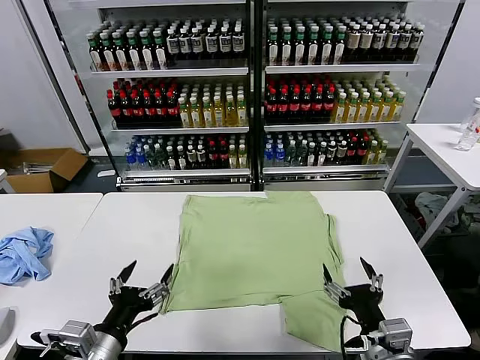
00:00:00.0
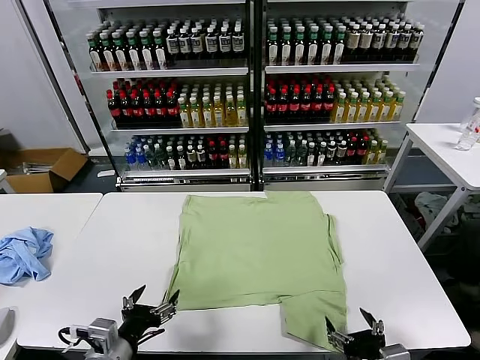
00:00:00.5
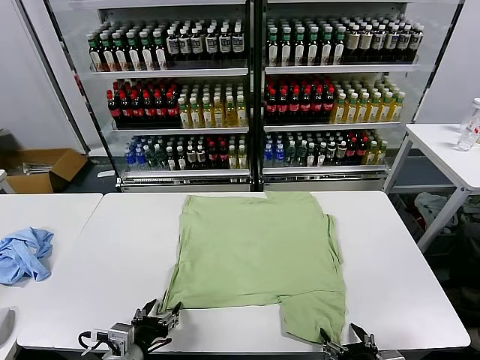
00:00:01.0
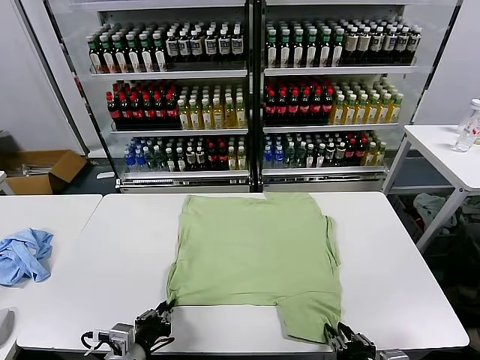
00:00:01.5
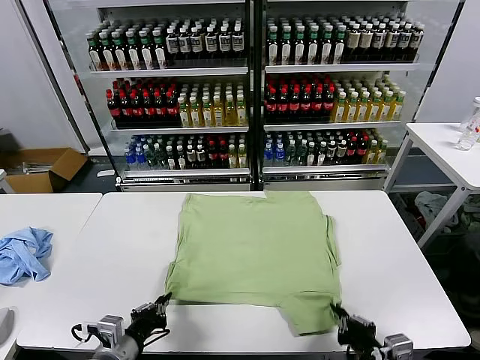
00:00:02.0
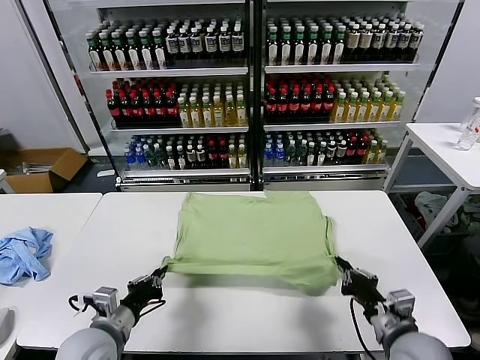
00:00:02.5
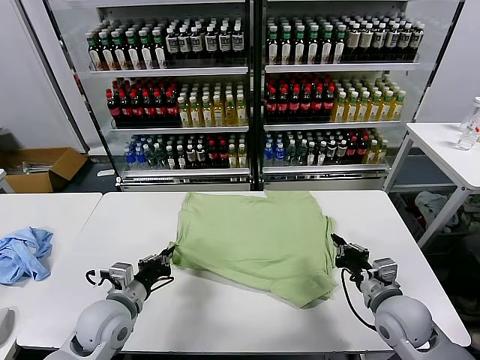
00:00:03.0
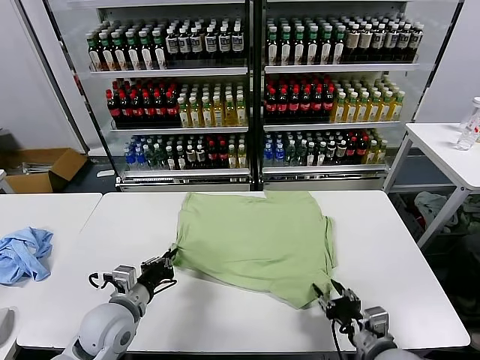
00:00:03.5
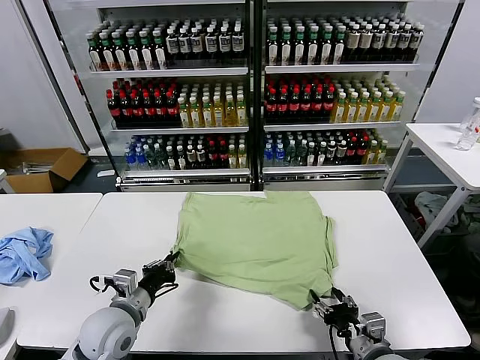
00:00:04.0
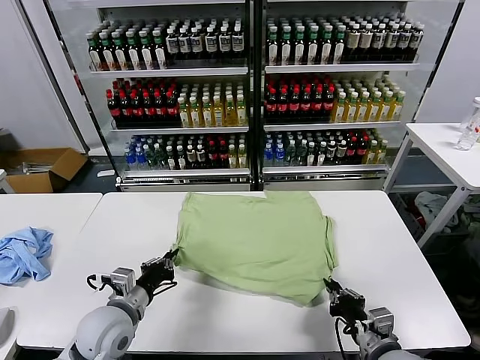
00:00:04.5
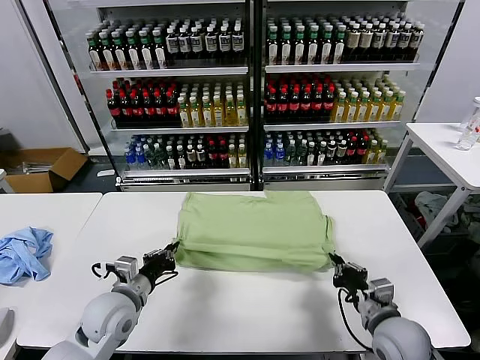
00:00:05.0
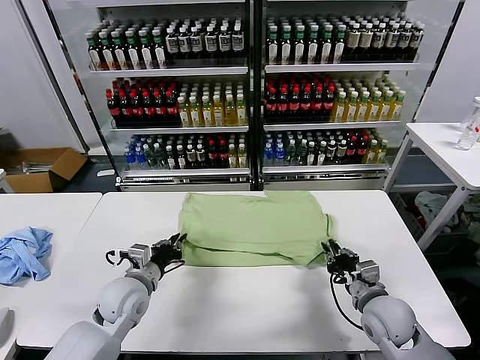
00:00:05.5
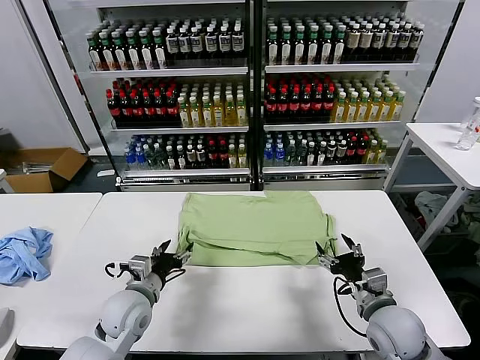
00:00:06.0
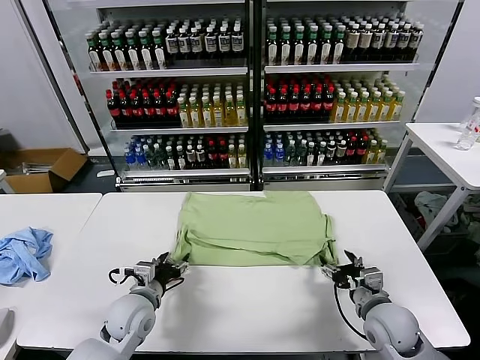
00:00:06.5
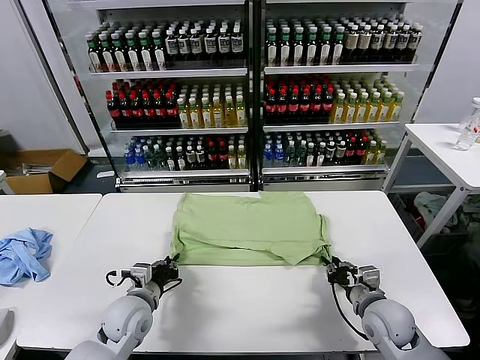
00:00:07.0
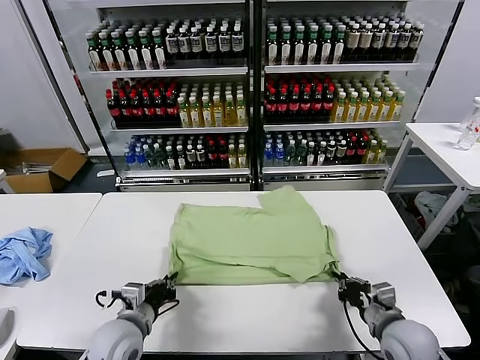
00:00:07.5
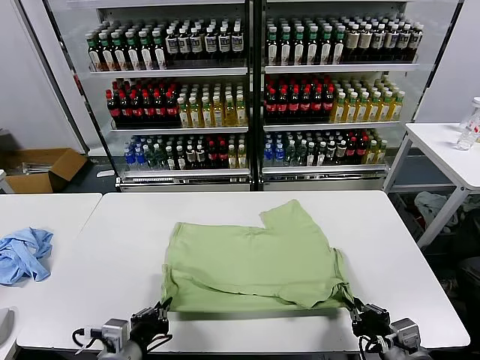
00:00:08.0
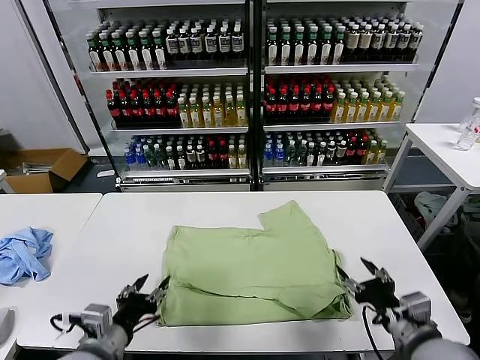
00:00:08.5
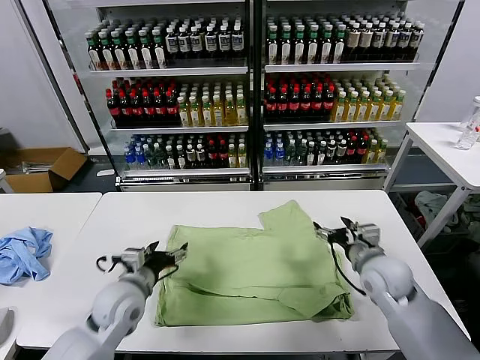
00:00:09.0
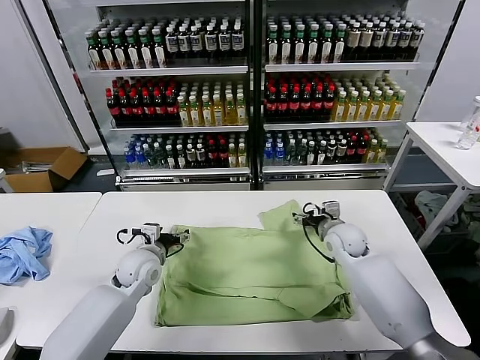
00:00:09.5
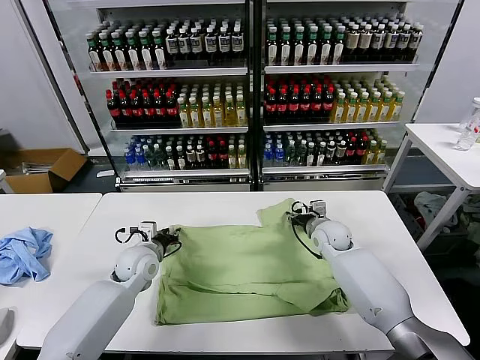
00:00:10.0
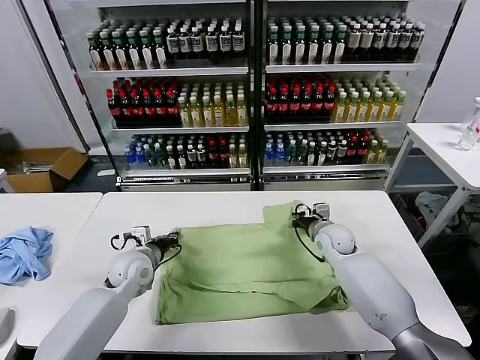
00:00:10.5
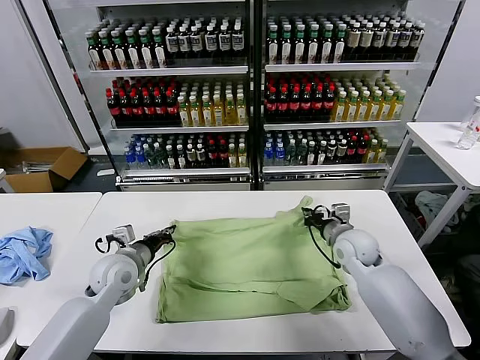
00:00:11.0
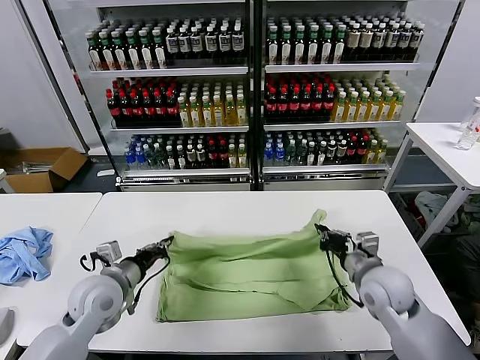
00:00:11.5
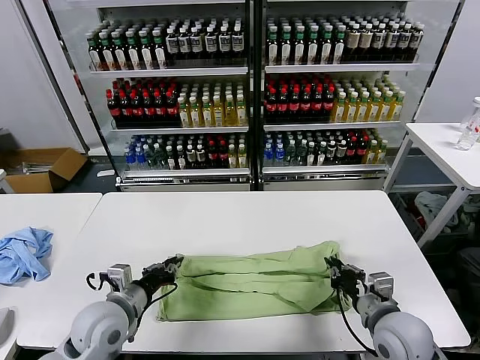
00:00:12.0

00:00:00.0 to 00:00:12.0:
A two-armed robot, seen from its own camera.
Task of the whole recording: fold and organize the clothes.
Step, 00:00:00.0 to 00:00:01.5: use both grippers simultaneously to clamp the lower edge of the clothing fabric.
Step, 00:00:02.0 to 00:00:05.5: use both grippers to drag the lower edge of the fabric forward and fold it over the upper edge.
Step, 00:00:06.0 to 00:00:08.0: Drag the clothes downward with both gripper.
Step, 00:00:08.5 to 00:00:10.0: use both grippers simultaneously to clamp the upper edge of the clothing fabric.
00:00:02.0 to 00:00:04.0: The right gripper goes forward and returns, roughly 10 cm each way, and opens its fingers; the left gripper shifts about 10 cm forward.
00:00:04.0 to 00:00:06.0: The left gripper ends up roughly 5 cm from where it was, and opens up. Meanwhile the right gripper shifts approximately 5 cm forward, and opens up.
00:00:06.0 to 00:00:08.0: Both grippers travel together backward, approximately 15 cm. The right gripper closes up; the left gripper closes its fingers.
00:00:08.0 to 00:00:10.0: The two grippers go approximately 30 cm forward. The left gripper opens up, while the right gripper opens, then closes once more.
00:00:10.0 to 00:00:12.0: The left gripper goes roughly 15 cm backward. The right gripper moves backward, approximately 25 cm.

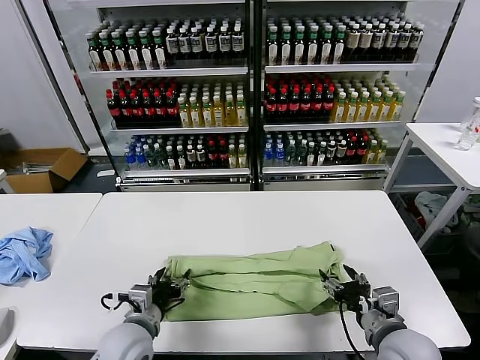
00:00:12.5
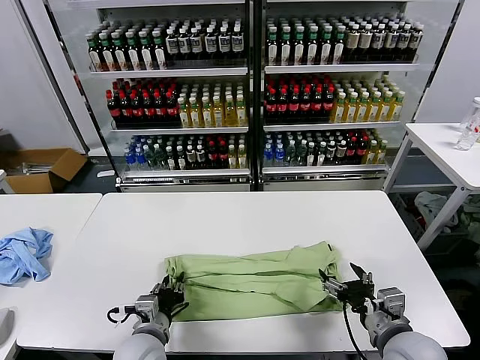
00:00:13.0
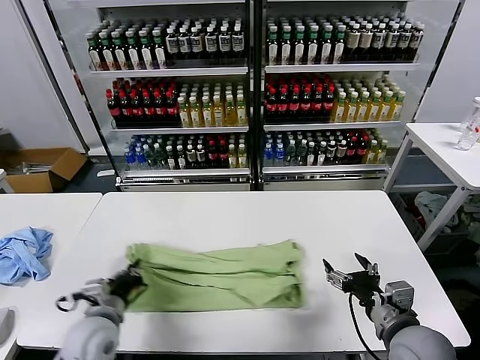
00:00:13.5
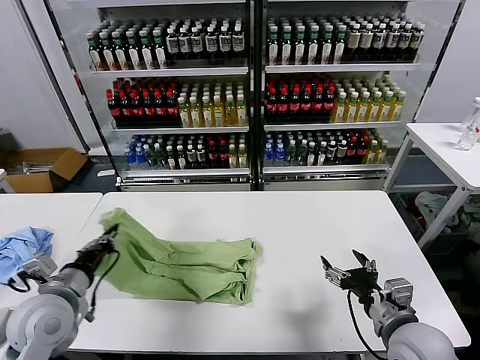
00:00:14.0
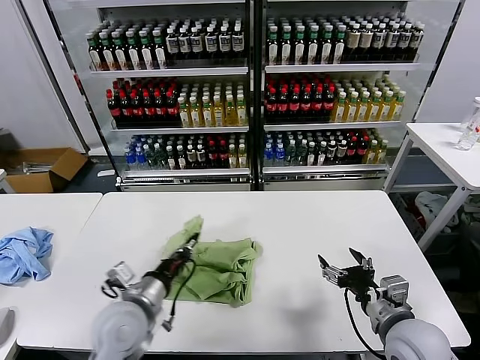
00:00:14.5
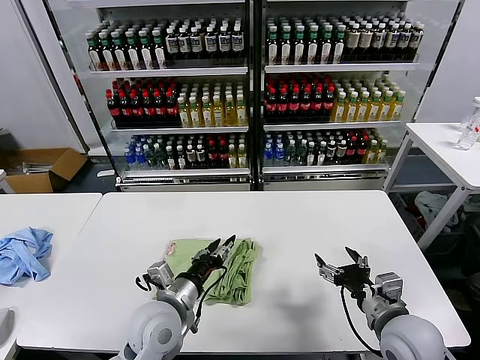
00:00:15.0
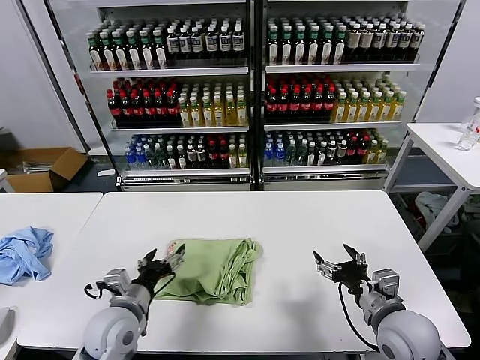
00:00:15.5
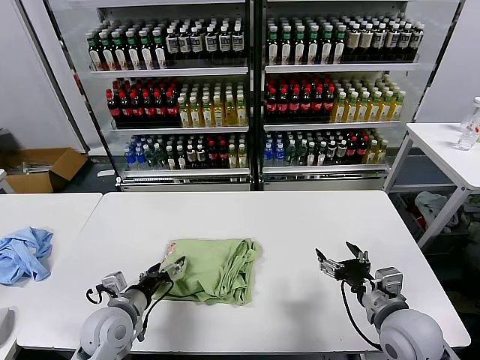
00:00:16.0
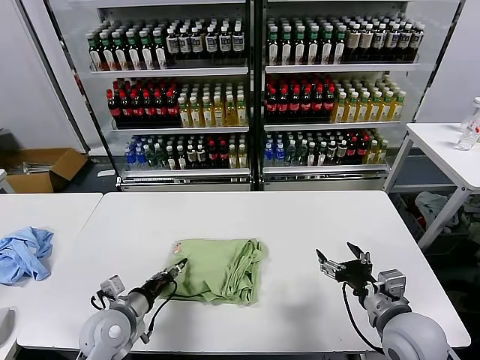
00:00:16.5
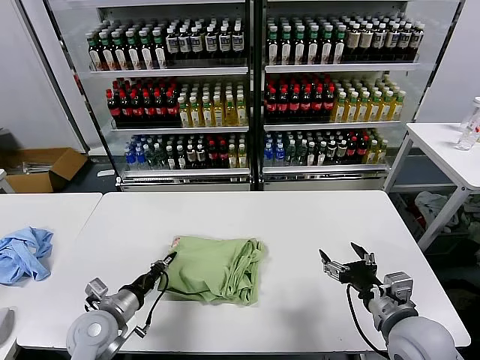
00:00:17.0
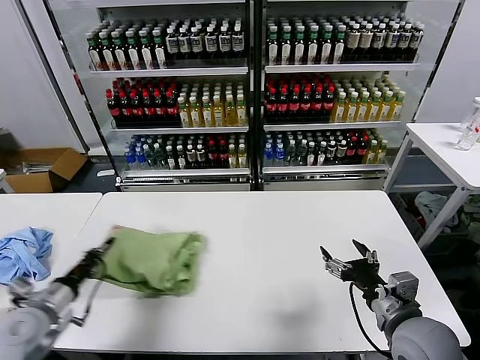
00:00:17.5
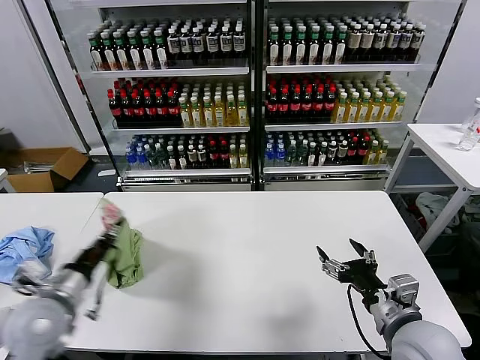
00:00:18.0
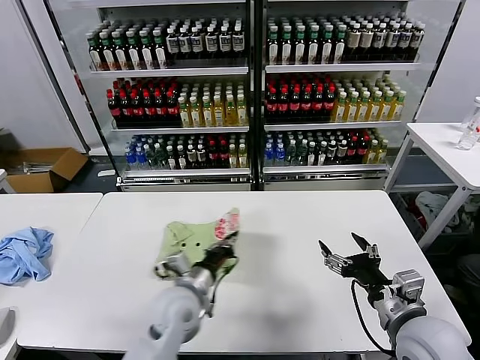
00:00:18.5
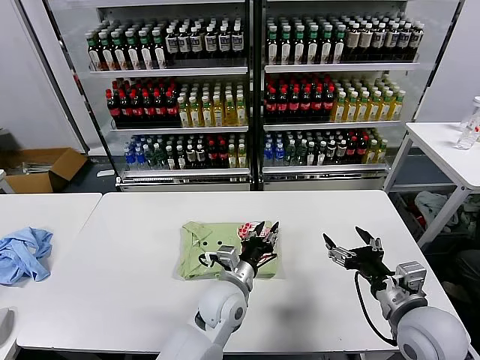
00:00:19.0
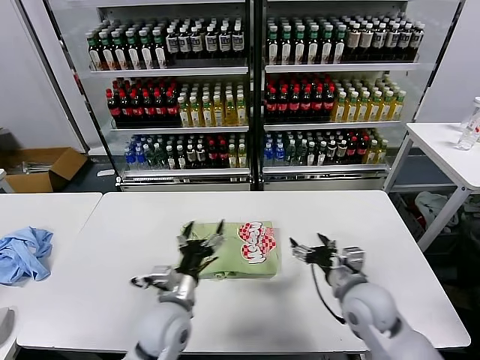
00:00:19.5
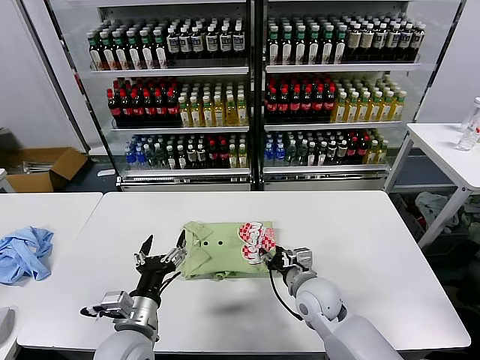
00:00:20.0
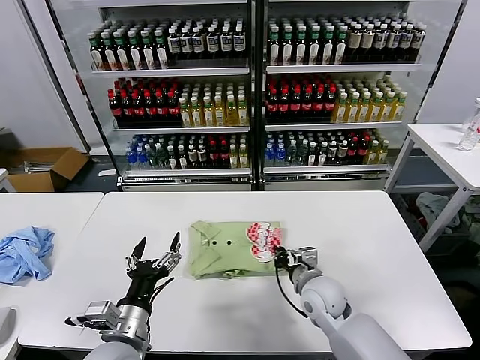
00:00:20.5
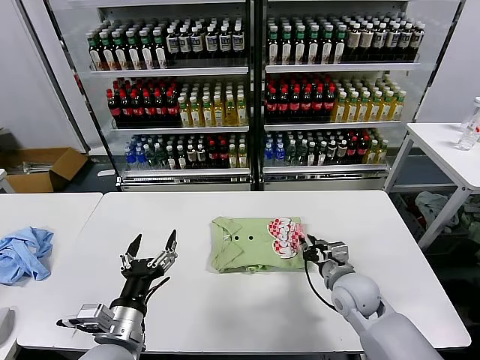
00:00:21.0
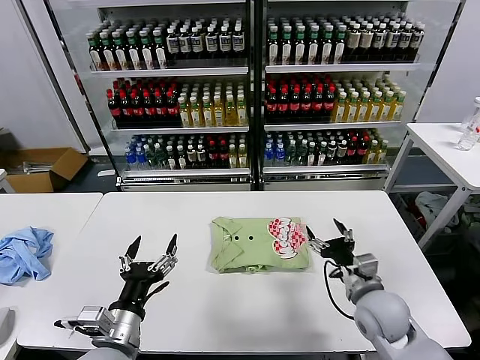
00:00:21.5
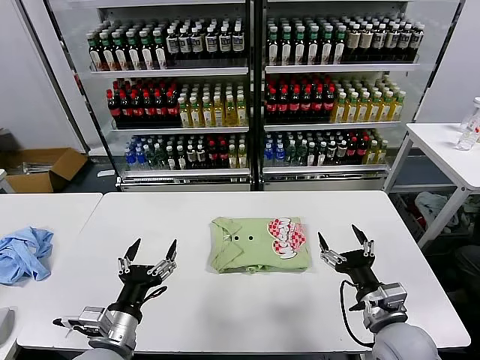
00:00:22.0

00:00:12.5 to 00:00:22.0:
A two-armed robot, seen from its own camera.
Task of the whole recording: fold and organize the clothes.
Step, 00:00:12.5 to 00:00:13.0: use the left gripper to clamp the left edge of the fabric.
Step, 00:00:13.5 to 00:00:14.5: use the left gripper to drag the left edge of the fabric to the left and folds it over the right edge.
Step, 00:00:16.0 to 00:00:21.0: Drag the clothes to the center of the table.
00:00:12.5 to 00:00:14.5: The left gripper shifts approximately 5 cm upward, goes to the left and returns, some 10 cm each way, and closes up.
00:00:14.5 to 00:00:16.5: The left gripper heads downward and to the left, covering about 10 cm, and opens.
00:00:16.5 to 00:00:18.0: The left gripper goes roughly 15 cm upward and to the left, and closes up.
00:00:18.0 to 00:00:20.0: The left gripper travels to the right and downward by approximately 20 cm, and opens; the right gripper is displaced forward, to the left and downward by some 20 cm, and closes up.
00:00:20.0 to 00:00:22.0: The left gripper changes place by roughly 5 cm, while the right gripper heads to the right, backward and upward, covering roughly 15 cm, and opens up.

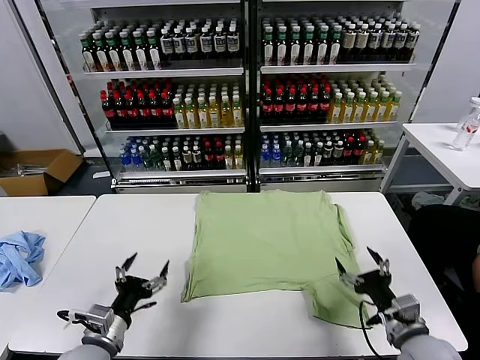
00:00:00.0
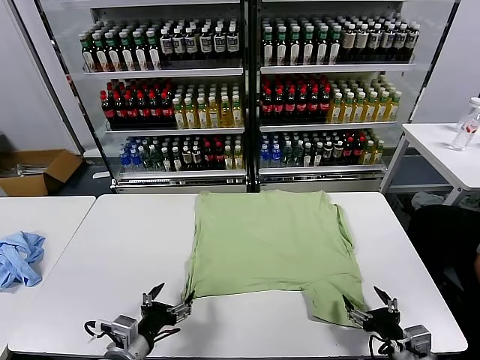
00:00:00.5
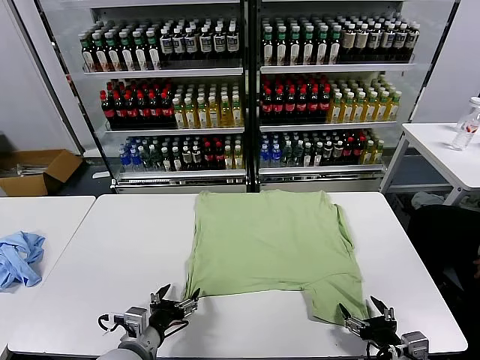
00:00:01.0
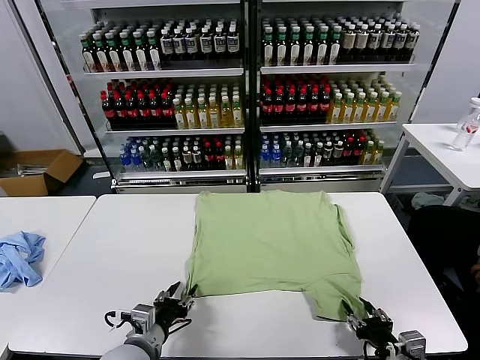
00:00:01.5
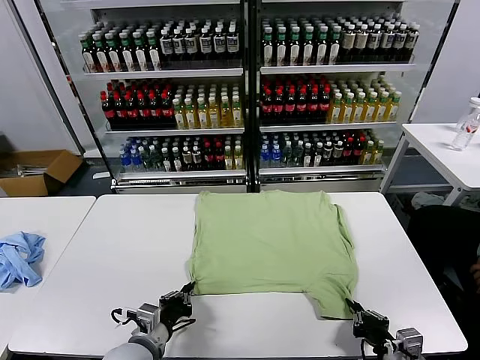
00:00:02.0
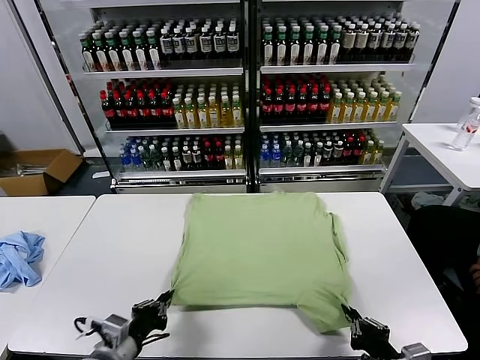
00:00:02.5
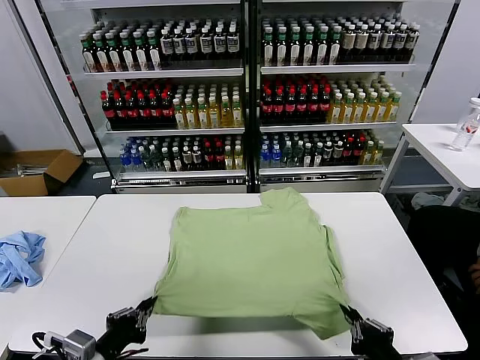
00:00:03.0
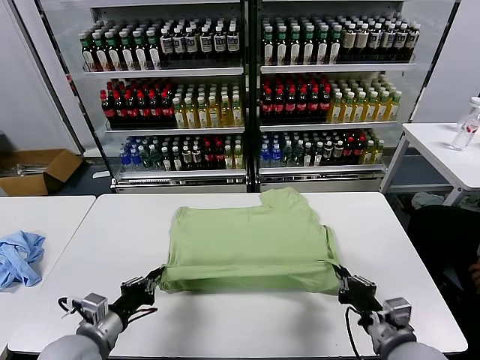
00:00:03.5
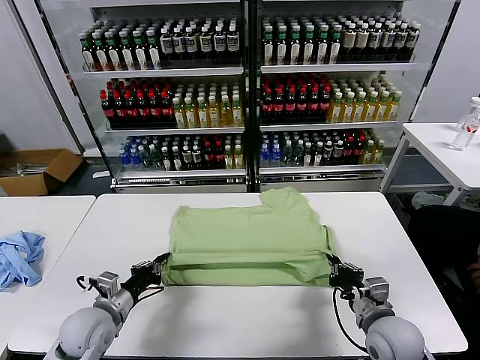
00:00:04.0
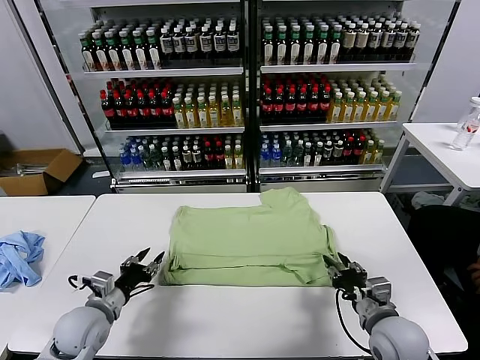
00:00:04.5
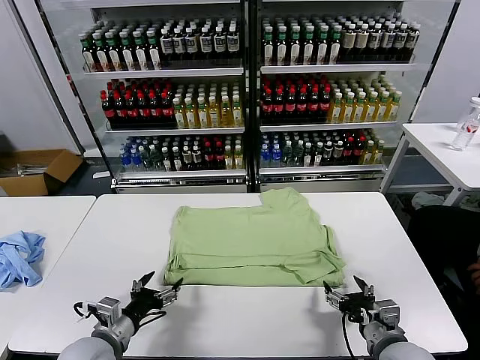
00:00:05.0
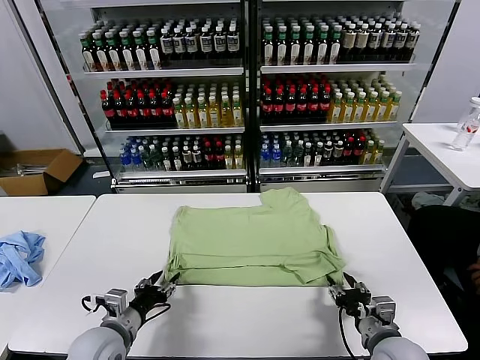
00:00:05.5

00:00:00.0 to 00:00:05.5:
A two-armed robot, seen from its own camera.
Task of the whole recording: fold and organize the clothes.
Step, 00:00:00.0 to 00:00:01.5: use both grippers simultaneously to clamp the lower edge of the clothing fabric.
Step, 00:00:02.0 to 00:00:04.0: use both grippers to drag the lower edge of the fabric forward and fold it over the upper edge.
00:00:02.0 to 00:00:03.5: The right gripper ends up roughly 10 cm from where it was, while the left gripper is displaced to the left and upward by about 10 cm.
00:00:03.5 to 00:00:05.5: The right gripper shifts by approximately 5 cm, and opens up, while the left gripper opens its fingers.
